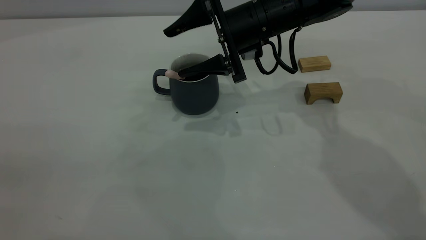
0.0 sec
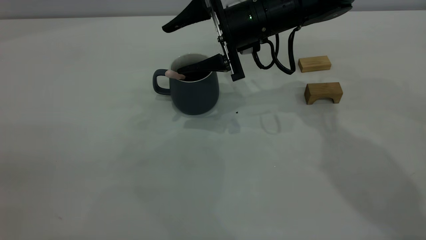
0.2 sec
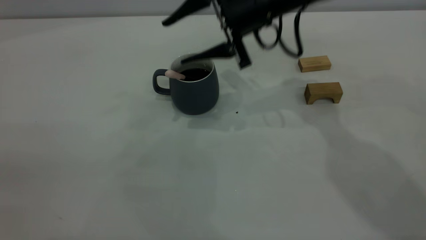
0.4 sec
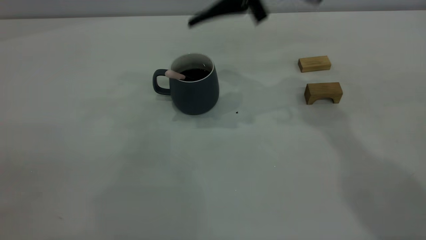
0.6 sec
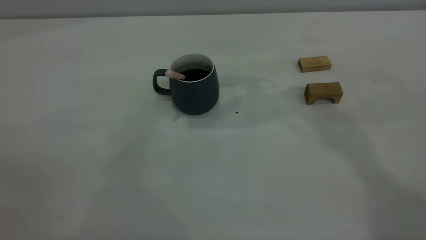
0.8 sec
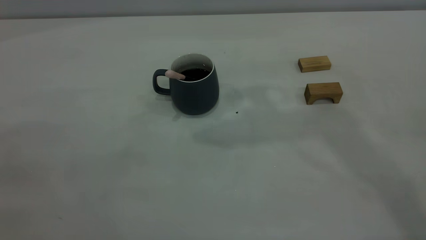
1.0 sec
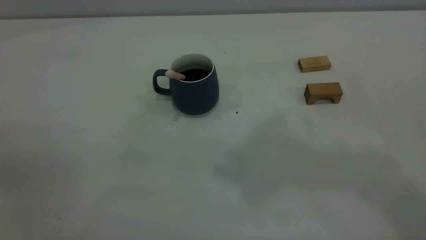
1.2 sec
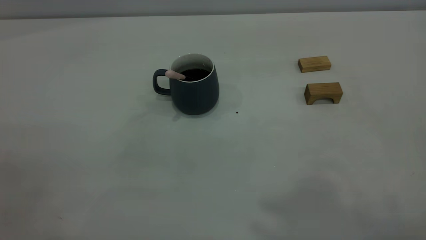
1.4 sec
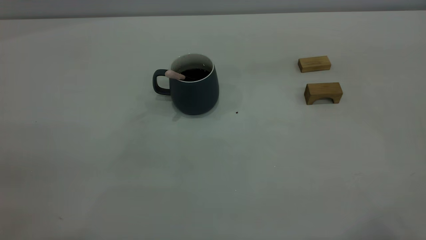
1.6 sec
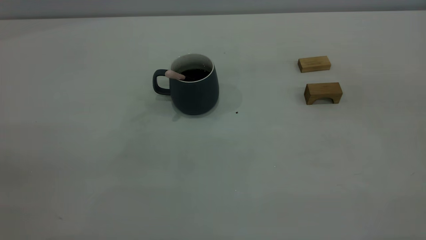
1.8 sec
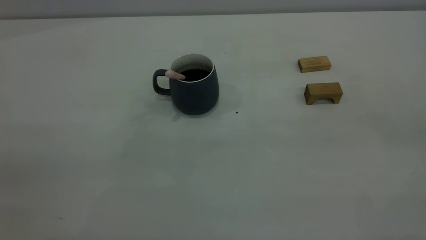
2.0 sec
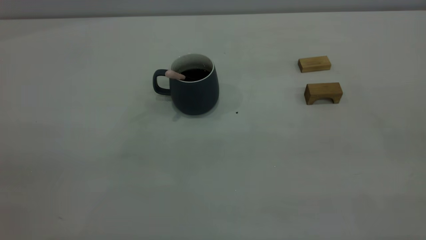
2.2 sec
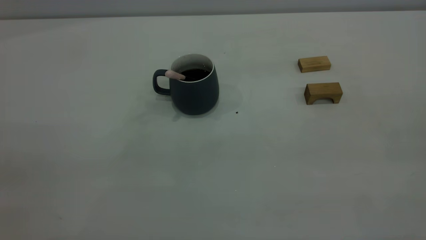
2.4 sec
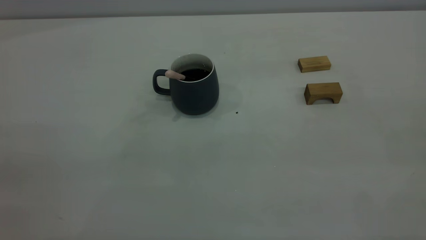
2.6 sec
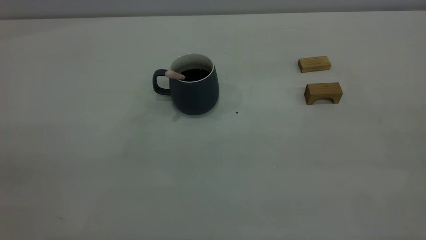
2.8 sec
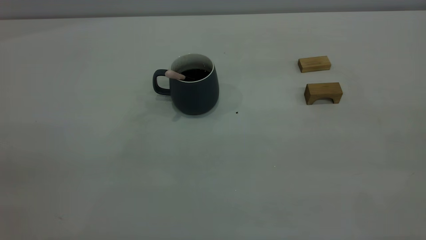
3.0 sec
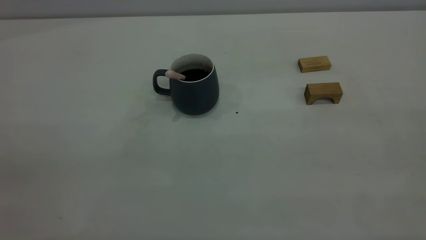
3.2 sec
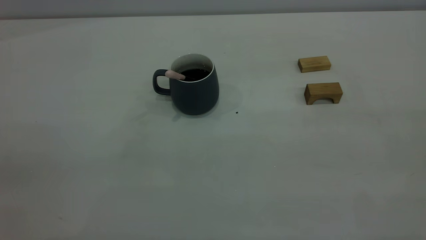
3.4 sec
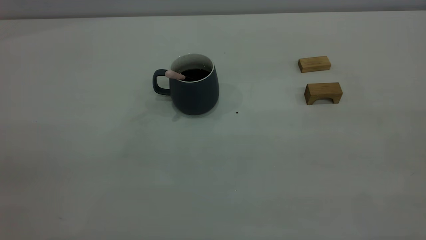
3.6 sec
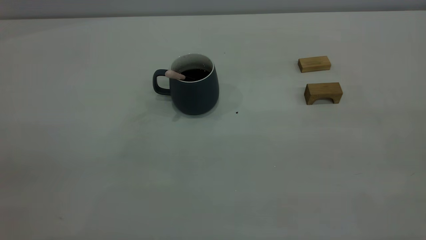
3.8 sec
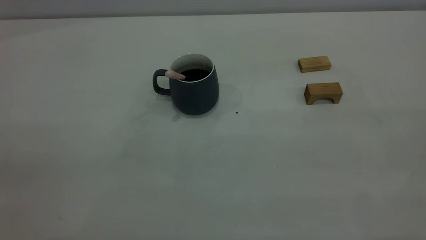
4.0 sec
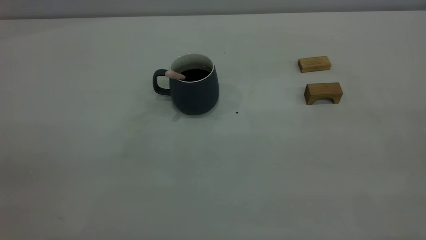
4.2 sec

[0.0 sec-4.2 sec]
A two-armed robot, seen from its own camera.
0.0 sec to 1.4 sec: The right gripper moves upward and backward, about 50 cm, and closes up.

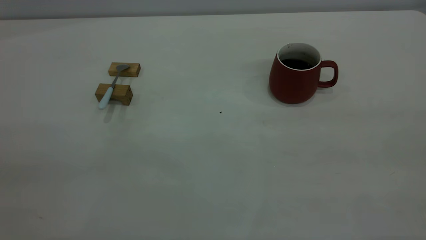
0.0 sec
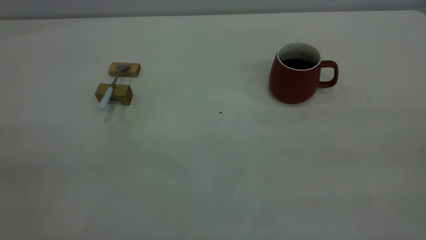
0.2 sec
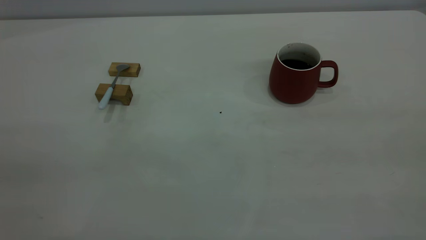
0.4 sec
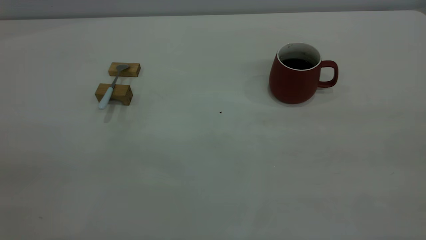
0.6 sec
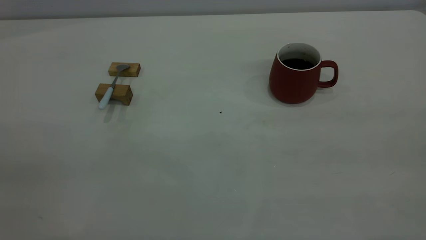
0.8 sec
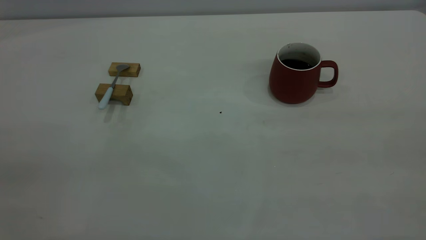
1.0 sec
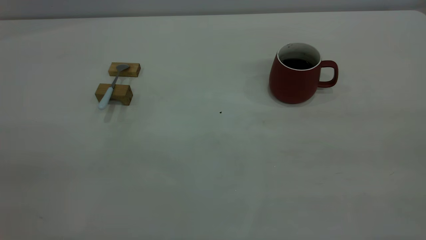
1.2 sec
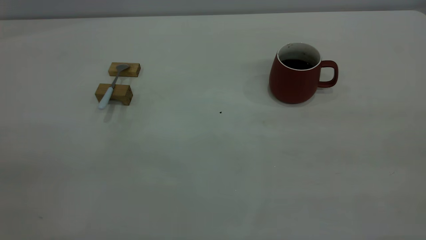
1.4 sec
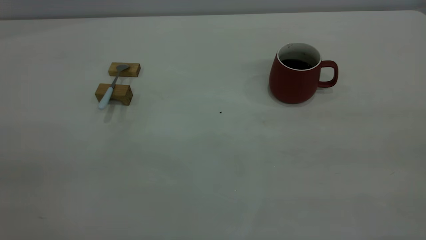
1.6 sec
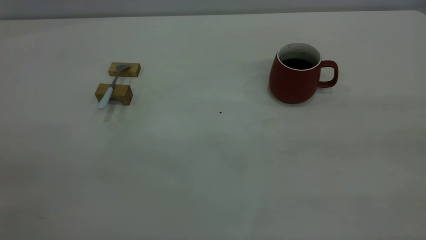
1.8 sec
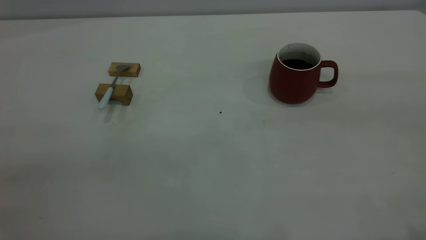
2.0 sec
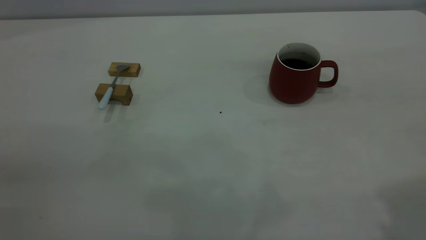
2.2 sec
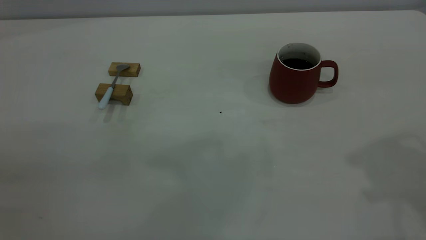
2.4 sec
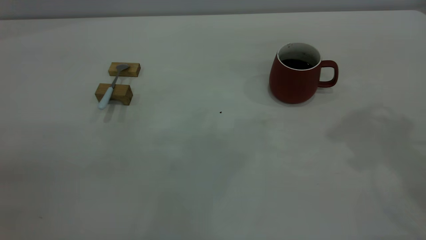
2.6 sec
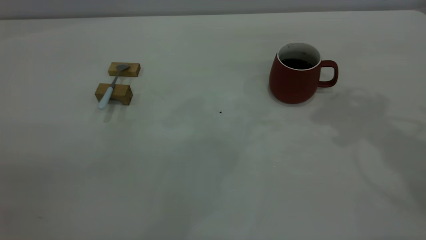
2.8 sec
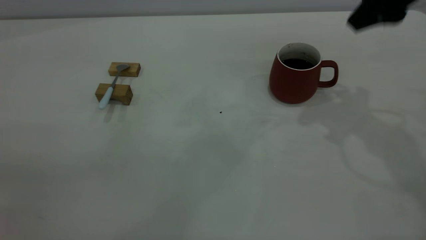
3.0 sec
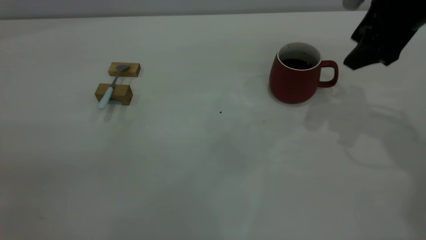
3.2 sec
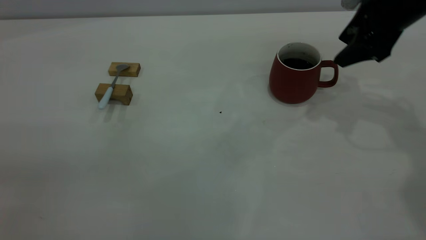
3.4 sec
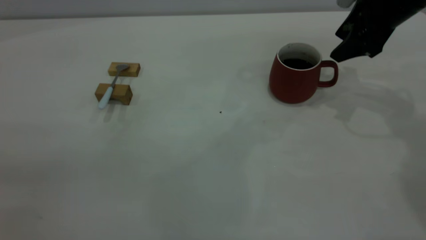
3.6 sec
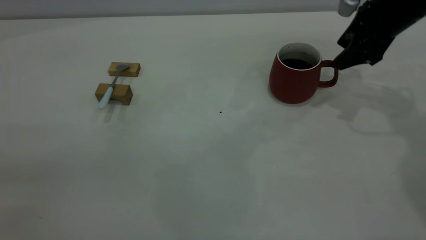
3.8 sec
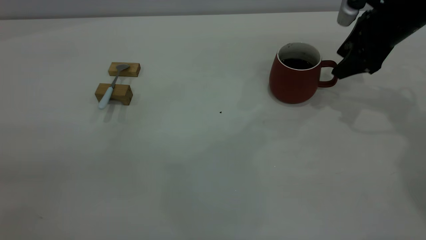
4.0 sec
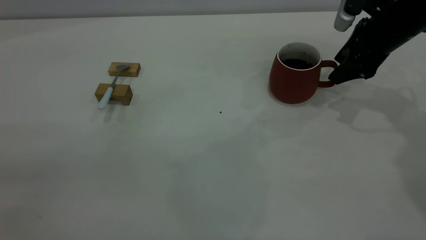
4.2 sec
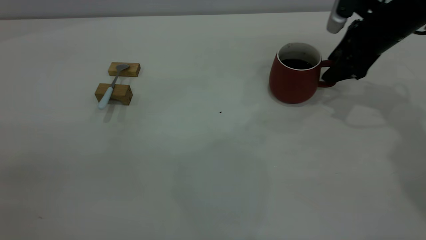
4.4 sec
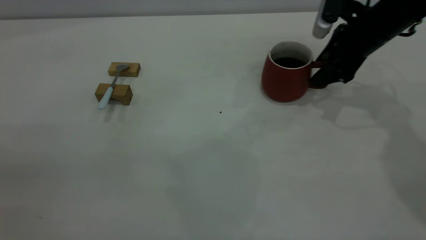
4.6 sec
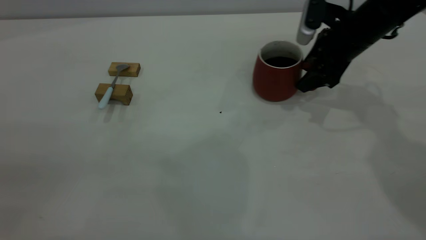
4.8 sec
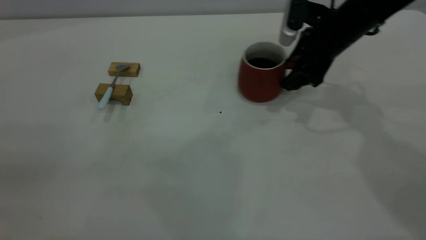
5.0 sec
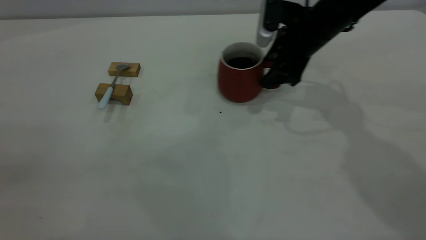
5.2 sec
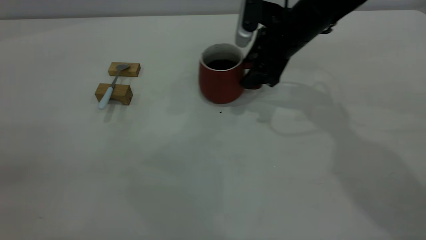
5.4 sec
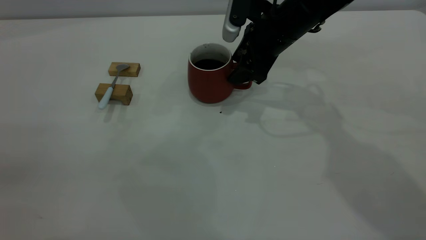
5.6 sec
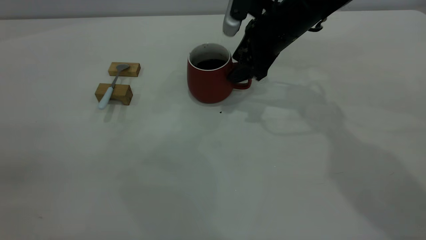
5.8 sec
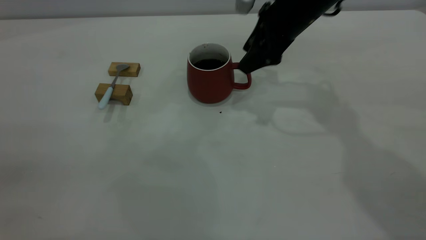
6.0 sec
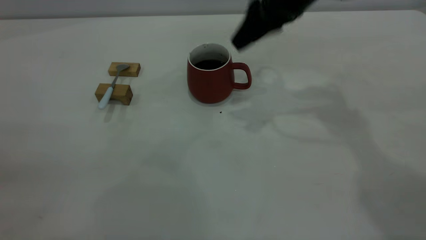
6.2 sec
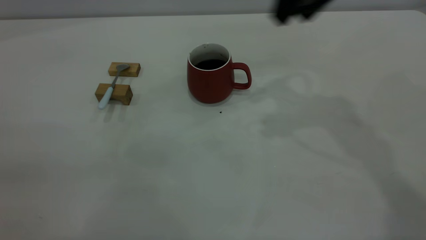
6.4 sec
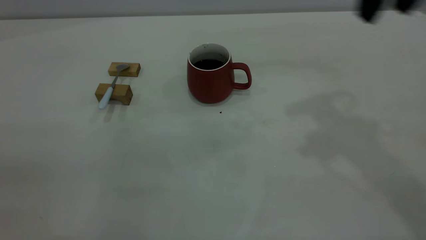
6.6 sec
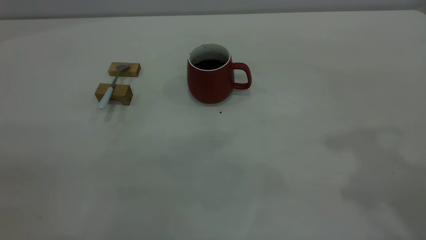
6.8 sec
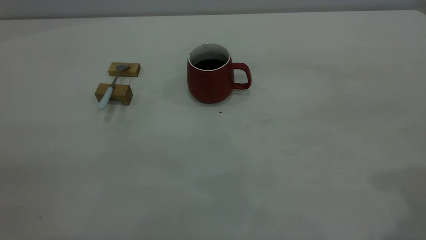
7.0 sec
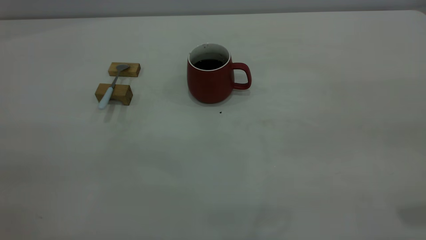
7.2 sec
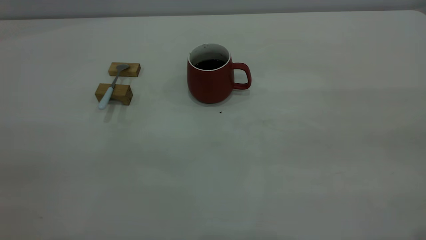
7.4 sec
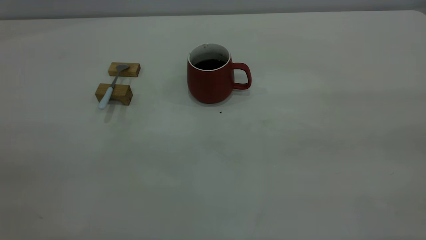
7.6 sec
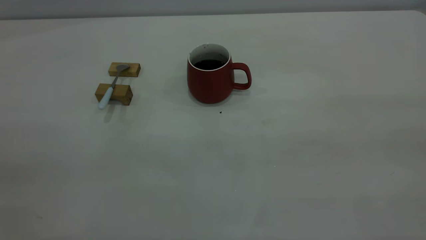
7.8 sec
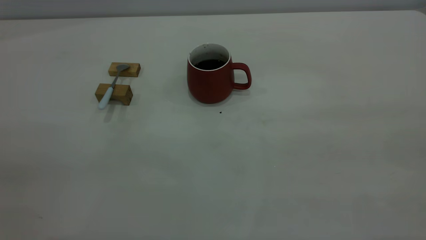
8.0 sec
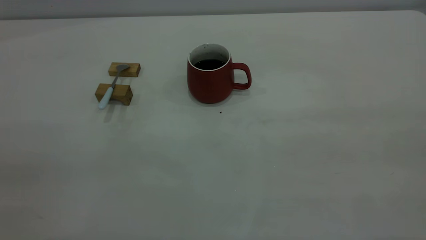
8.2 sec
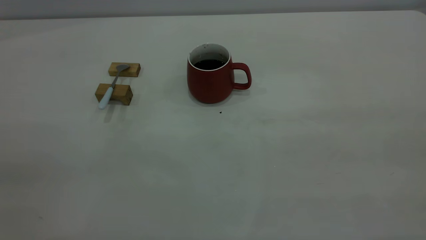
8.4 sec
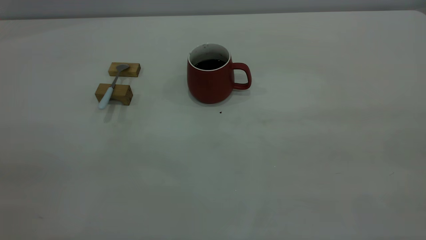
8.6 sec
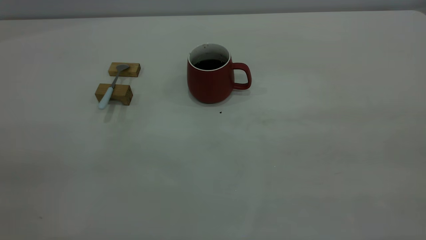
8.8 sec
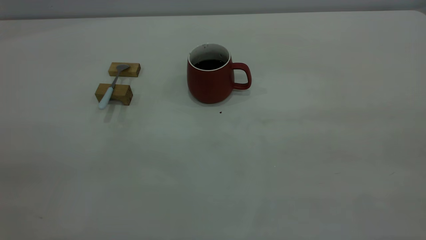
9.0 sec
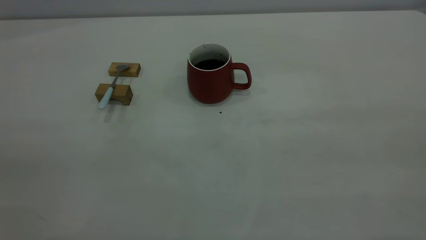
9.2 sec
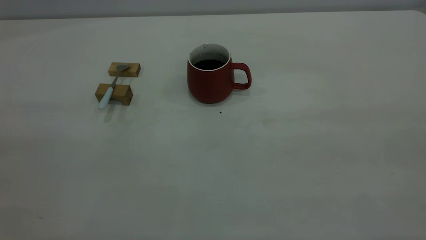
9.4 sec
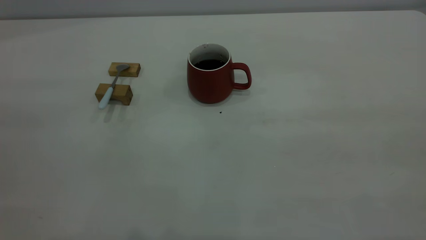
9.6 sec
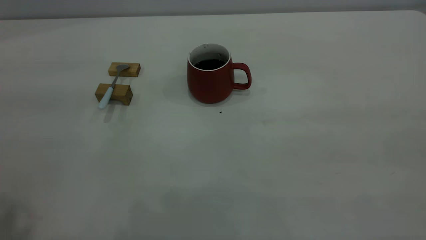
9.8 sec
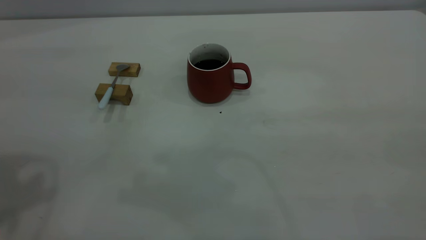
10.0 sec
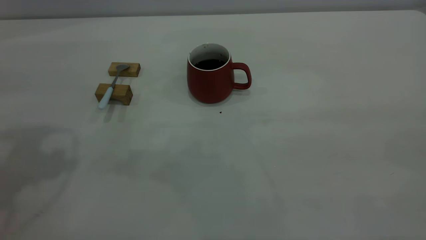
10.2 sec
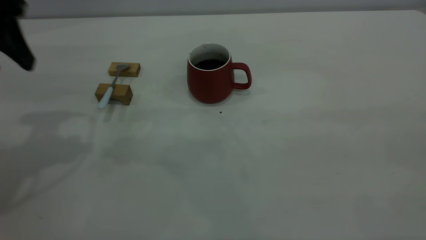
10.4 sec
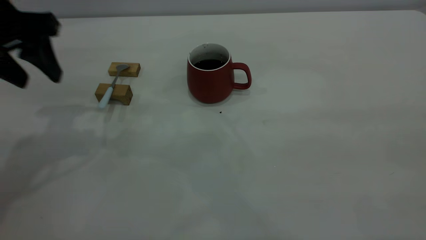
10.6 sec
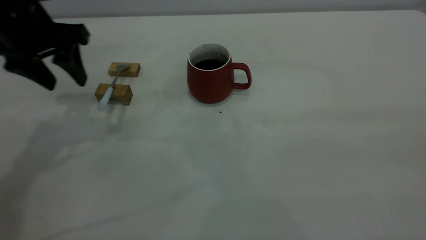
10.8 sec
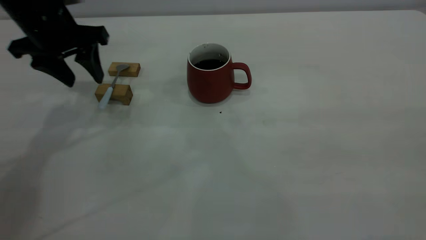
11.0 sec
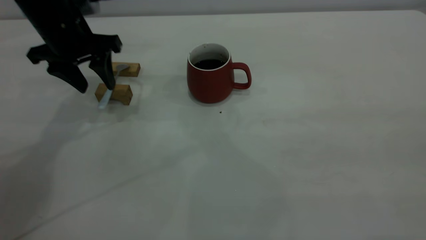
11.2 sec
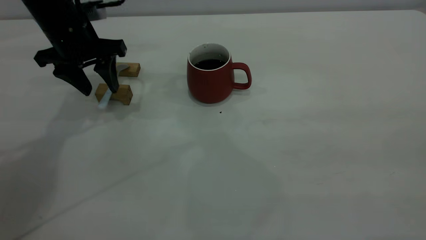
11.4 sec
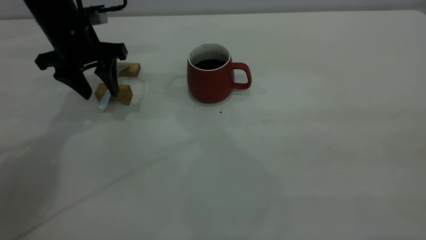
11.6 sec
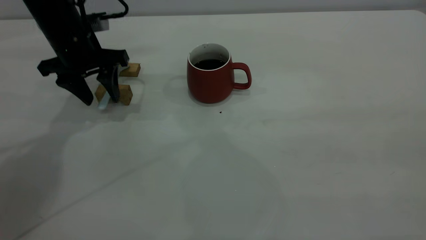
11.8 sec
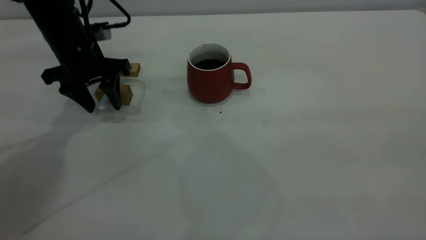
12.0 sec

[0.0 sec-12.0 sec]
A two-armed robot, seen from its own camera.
Step, 0.0 sec to 6.0 sec: Move the cup with coffee to the center of view.
0.0 sec to 1.6 sec: Neither gripper changes place.
1.6 sec to 3.0 sec: The right gripper is displaced forward by about 35 cm.
3.0 sec to 4.4 sec: The right gripper goes roughly 15 cm downward and forward.
4.4 sec to 6.0 sec: The right gripper heads to the left, covering approximately 15 cm.
6.0 sec to 7.6 sec: The right gripper moves backward, upward and to the right, about 50 cm.
9.0 sec to 10.4 sec: The left gripper moves forward, about 30 cm, and opens.
10.4 sec to 12.0 sec: The left gripper travels downward and forward by about 20 cm.

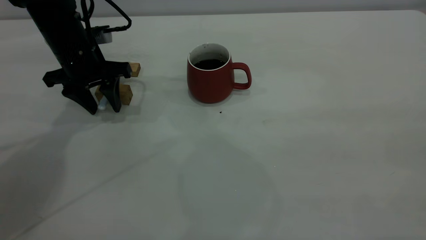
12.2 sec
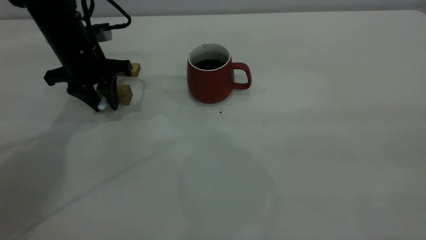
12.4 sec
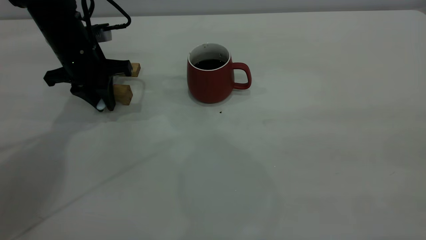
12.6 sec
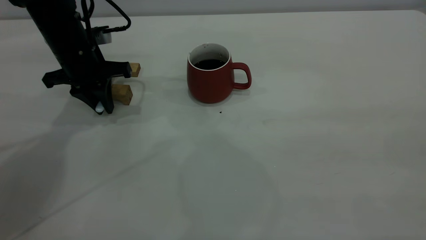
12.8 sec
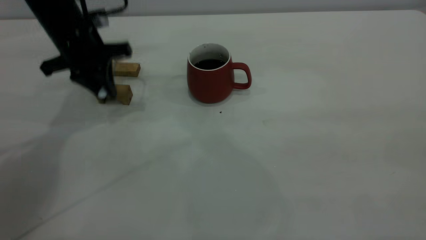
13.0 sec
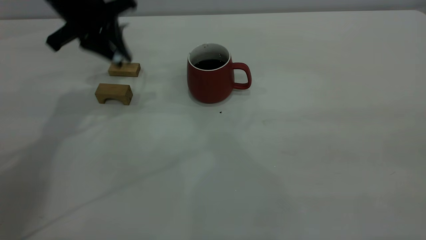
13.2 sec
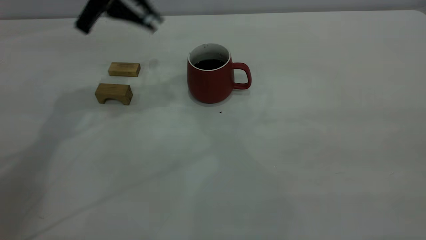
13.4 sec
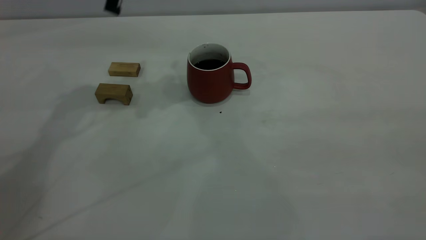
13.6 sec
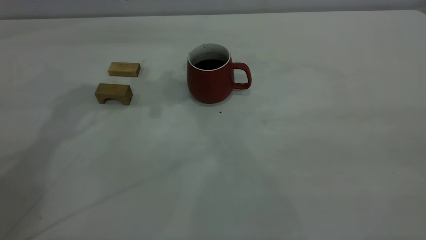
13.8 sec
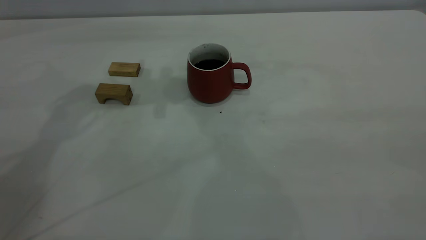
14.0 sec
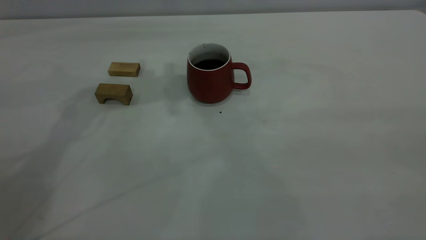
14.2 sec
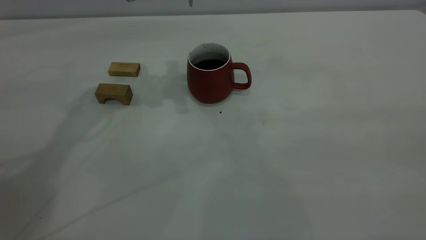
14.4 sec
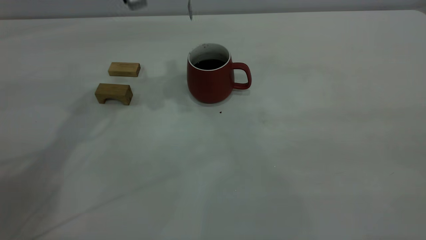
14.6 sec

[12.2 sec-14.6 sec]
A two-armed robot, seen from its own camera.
12.2 sec to 13.4 sec: The left gripper travels upward by about 10 cm, and closes its fingers.
13.4 sec to 14.6 sec: The left gripper shifts roughly 5 cm to the right.
